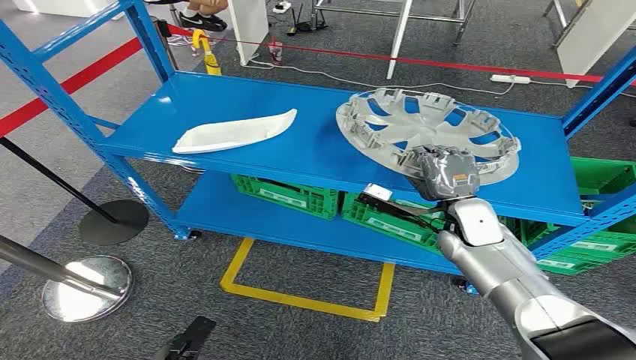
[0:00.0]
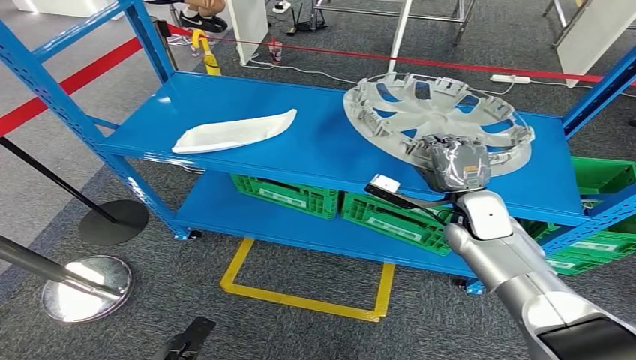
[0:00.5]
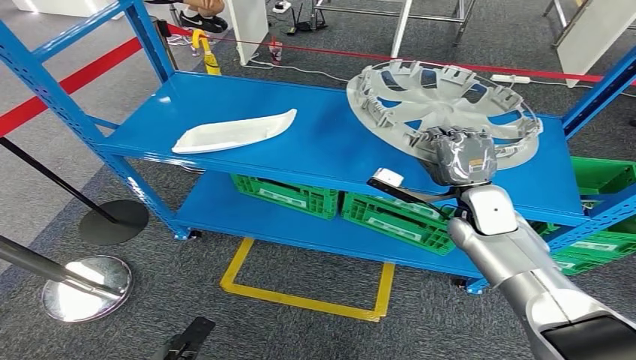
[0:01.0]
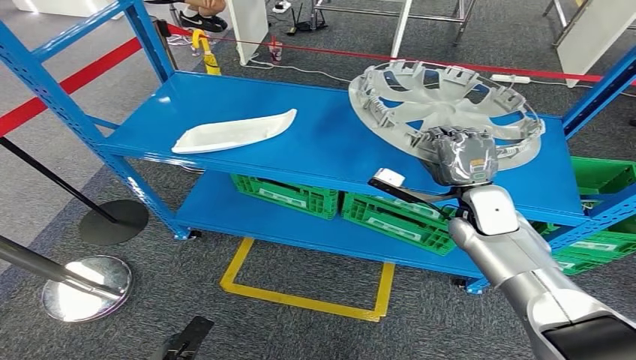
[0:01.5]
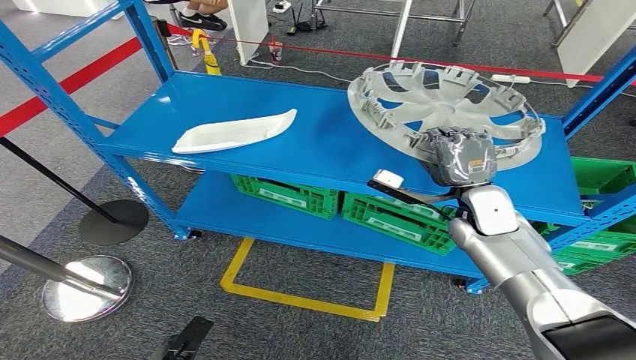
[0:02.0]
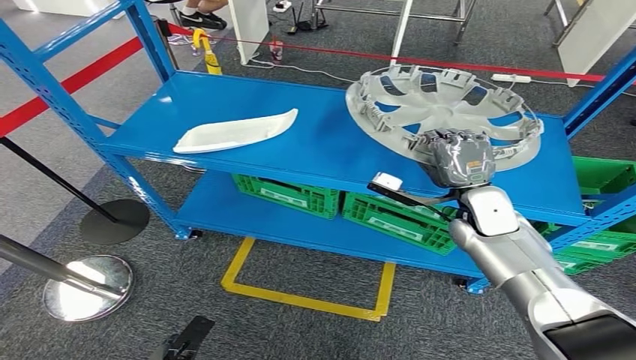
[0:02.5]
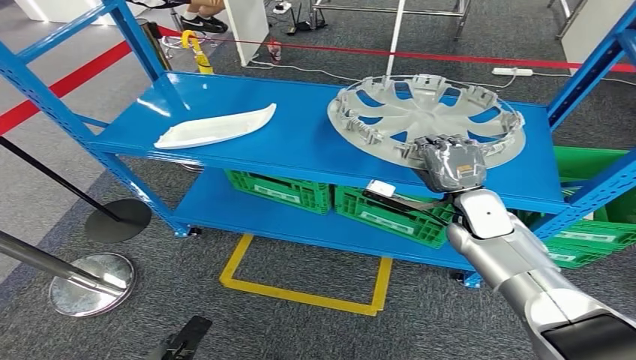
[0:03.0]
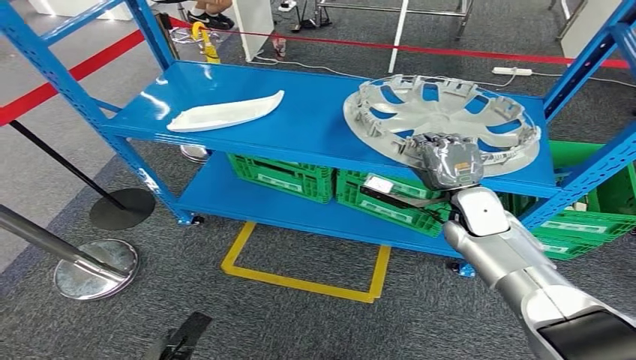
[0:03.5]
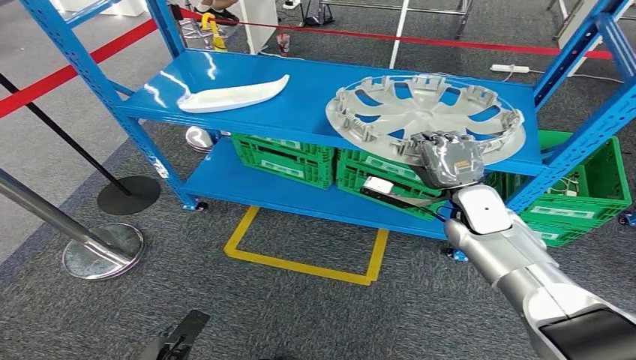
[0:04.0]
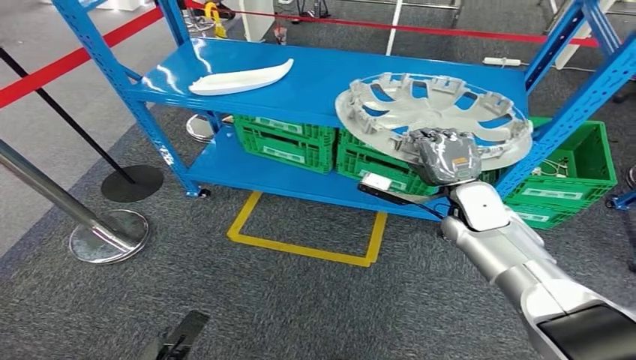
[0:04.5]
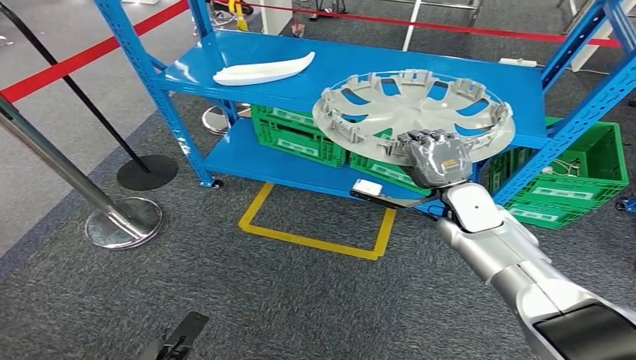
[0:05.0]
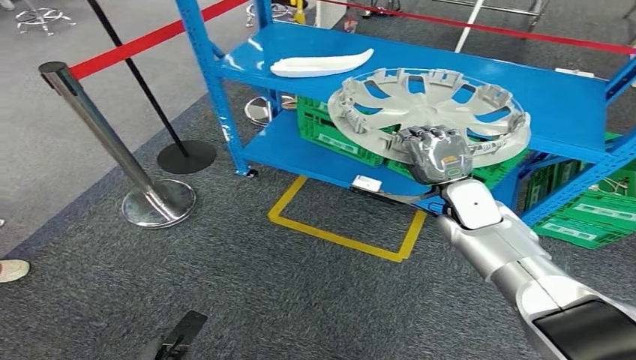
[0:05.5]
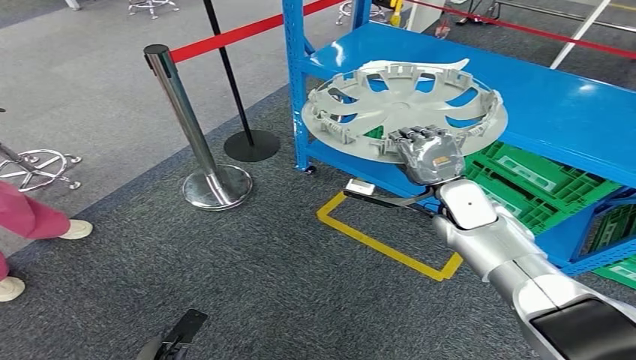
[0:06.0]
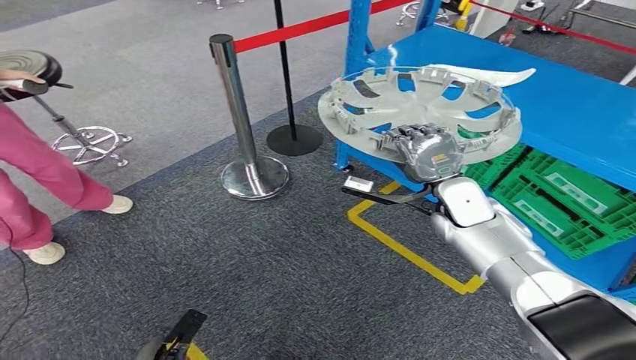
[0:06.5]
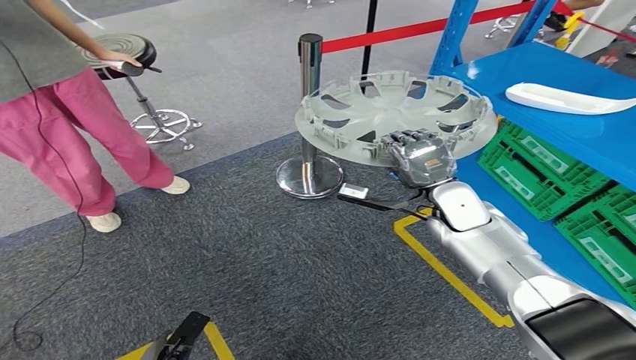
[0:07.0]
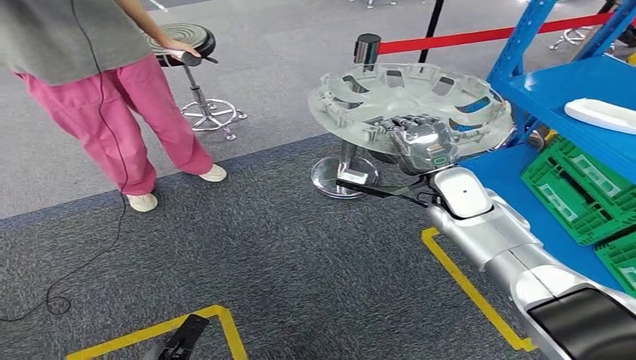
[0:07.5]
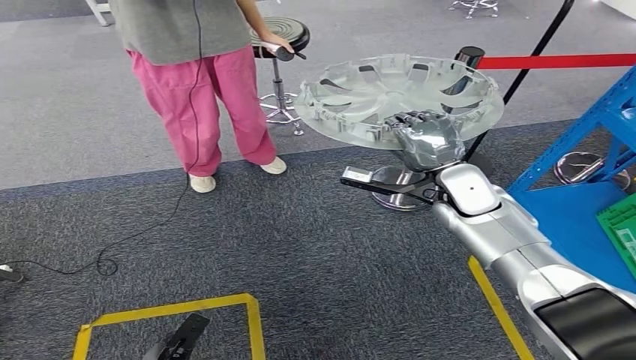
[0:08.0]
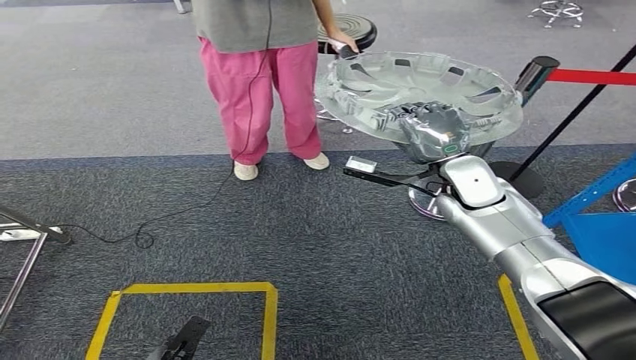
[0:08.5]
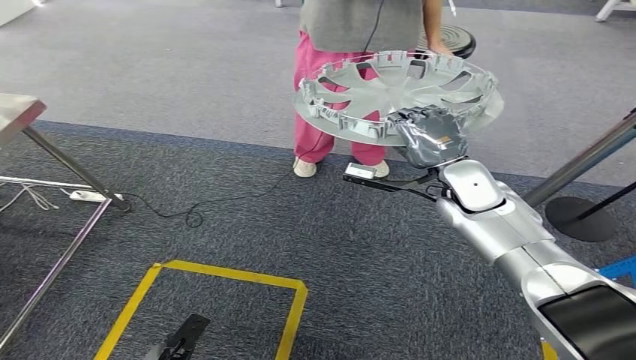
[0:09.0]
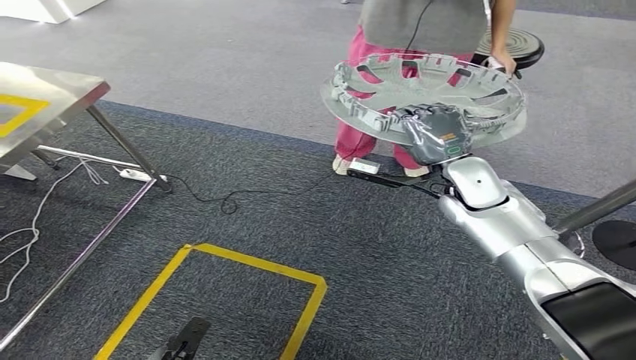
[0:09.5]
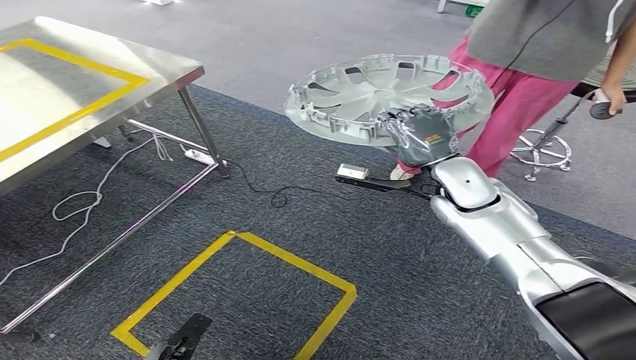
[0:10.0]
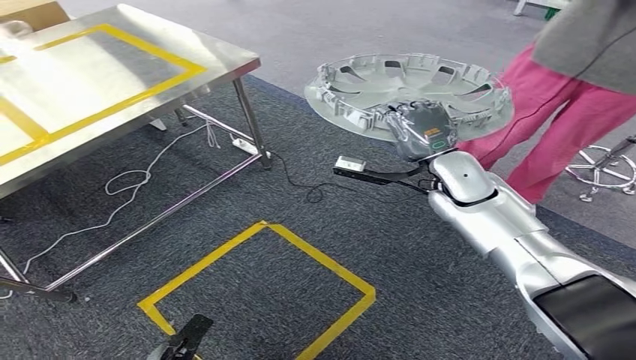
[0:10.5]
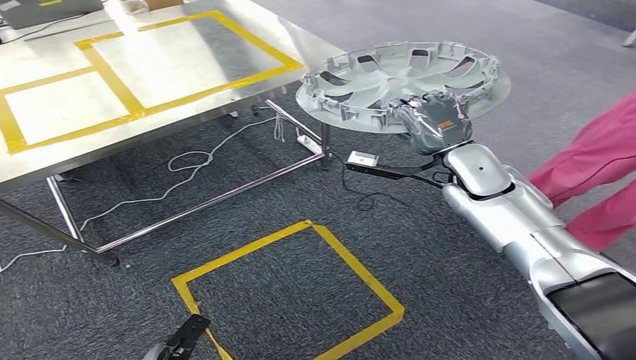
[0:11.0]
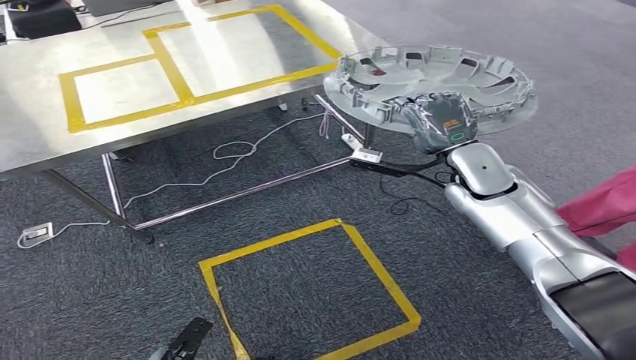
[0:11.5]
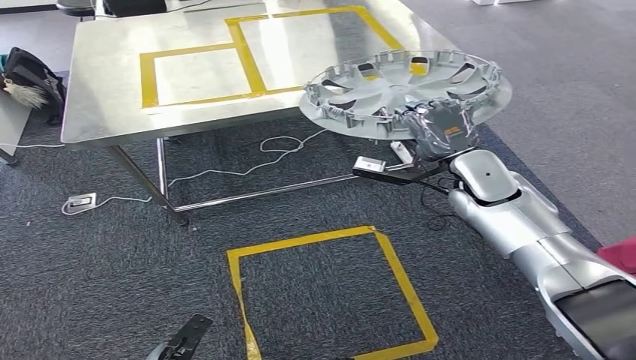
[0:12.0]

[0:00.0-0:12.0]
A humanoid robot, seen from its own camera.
Step, 0:00.0 to 0:02.0: Pick up the small parts from the shelf.

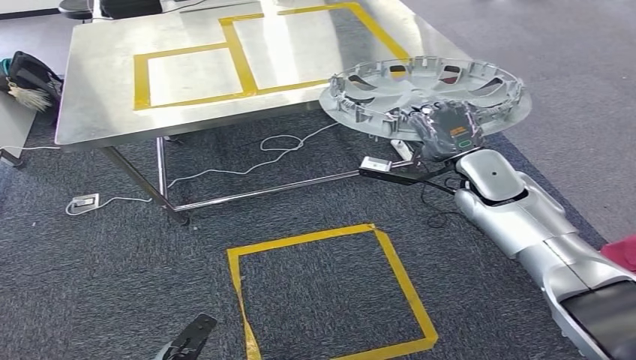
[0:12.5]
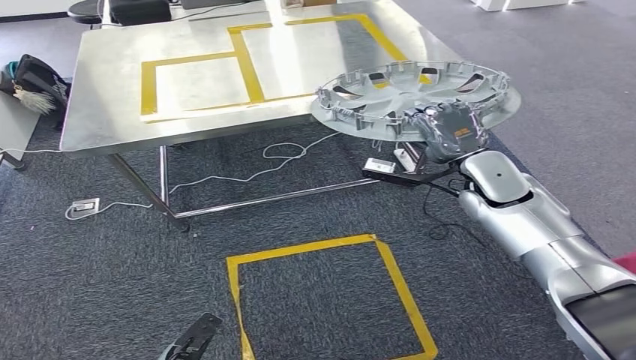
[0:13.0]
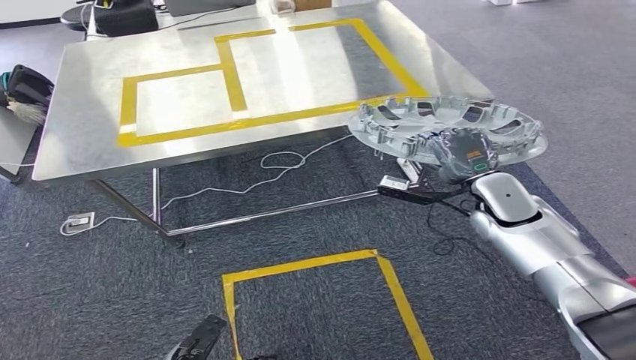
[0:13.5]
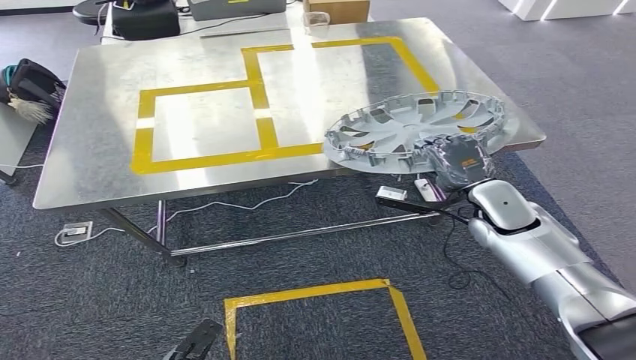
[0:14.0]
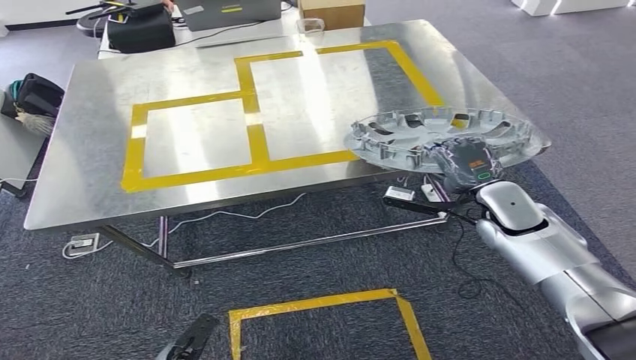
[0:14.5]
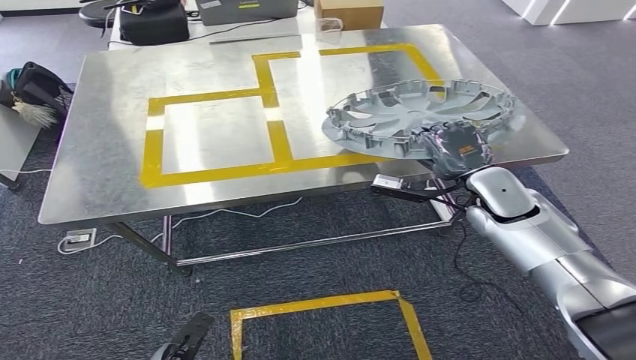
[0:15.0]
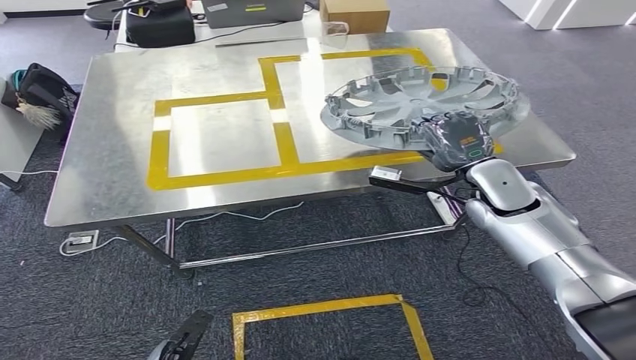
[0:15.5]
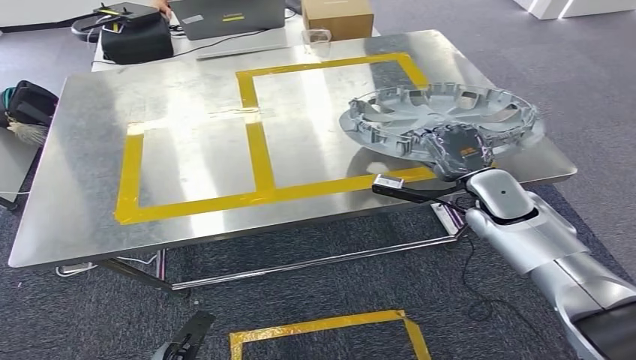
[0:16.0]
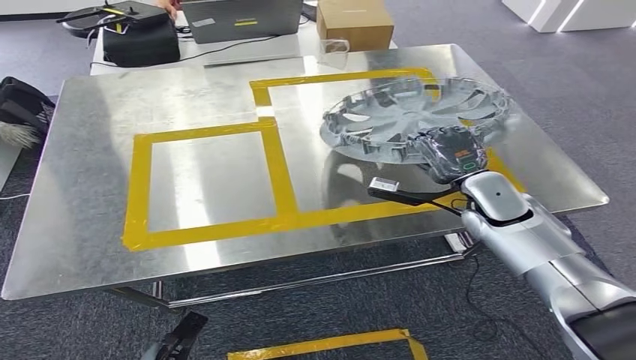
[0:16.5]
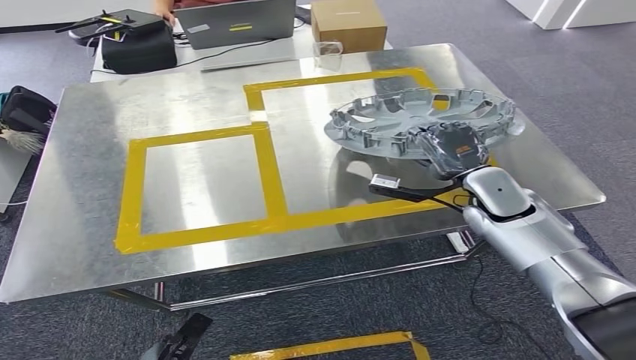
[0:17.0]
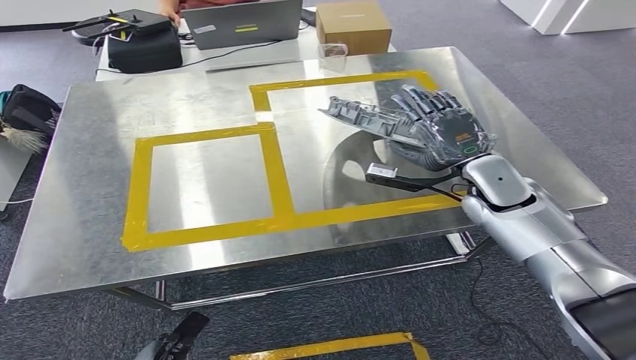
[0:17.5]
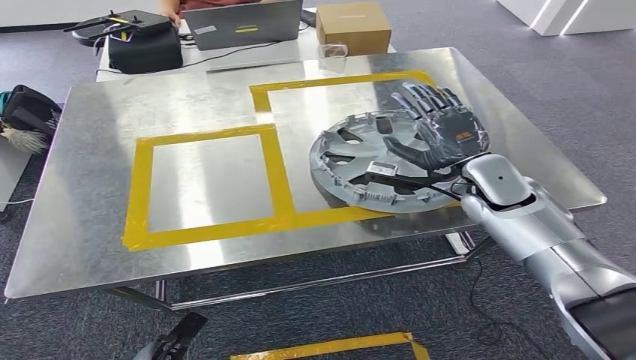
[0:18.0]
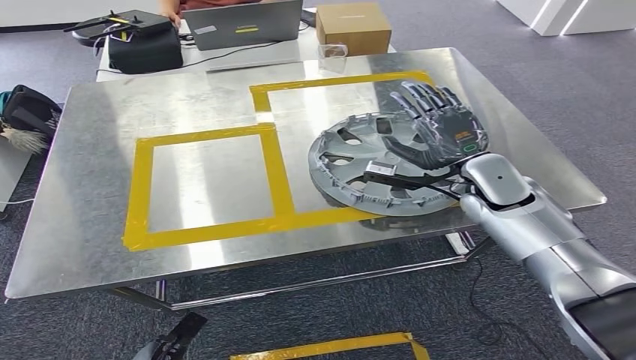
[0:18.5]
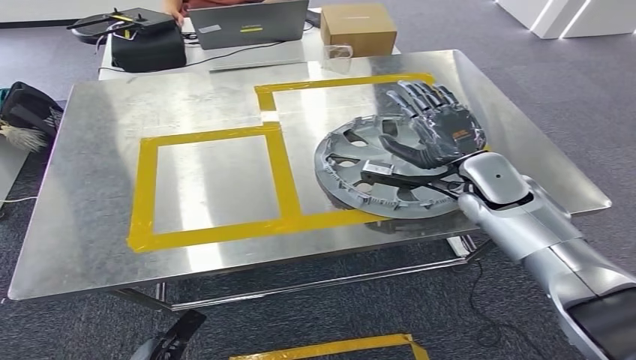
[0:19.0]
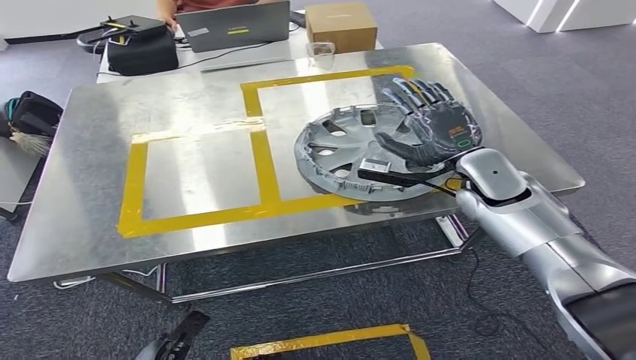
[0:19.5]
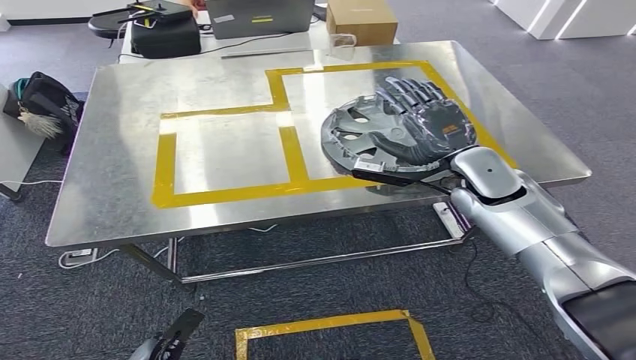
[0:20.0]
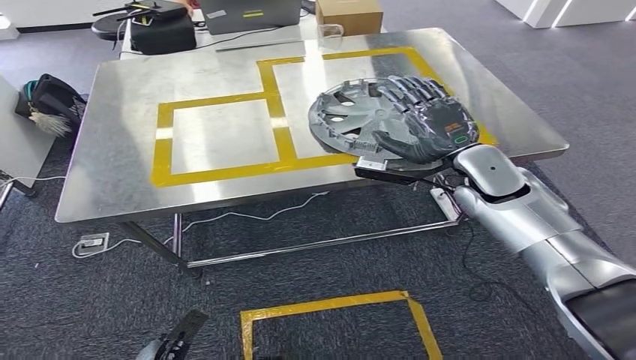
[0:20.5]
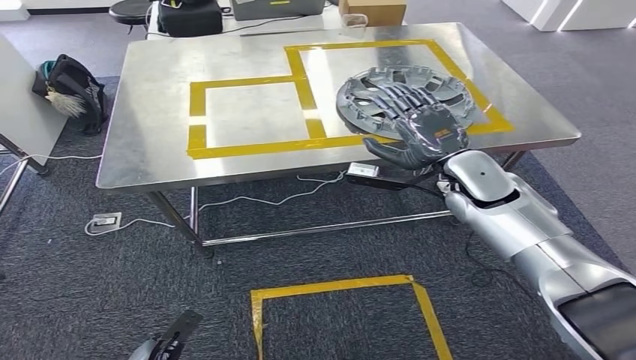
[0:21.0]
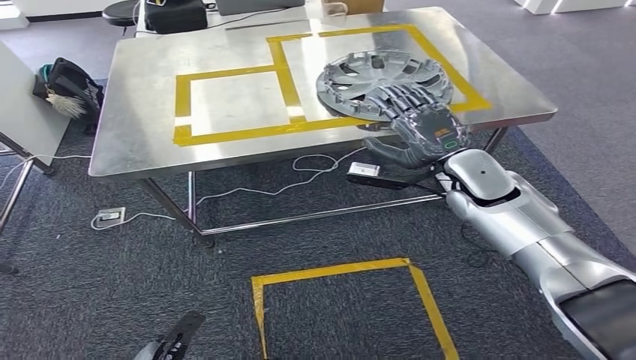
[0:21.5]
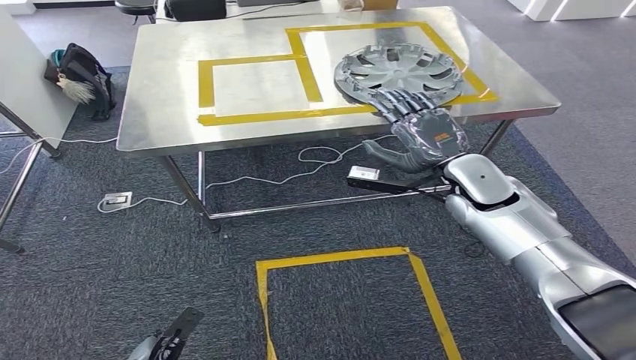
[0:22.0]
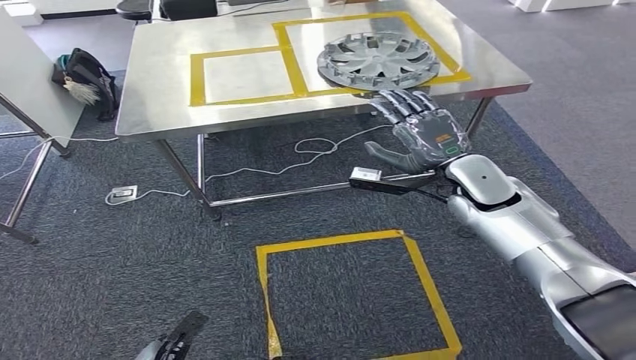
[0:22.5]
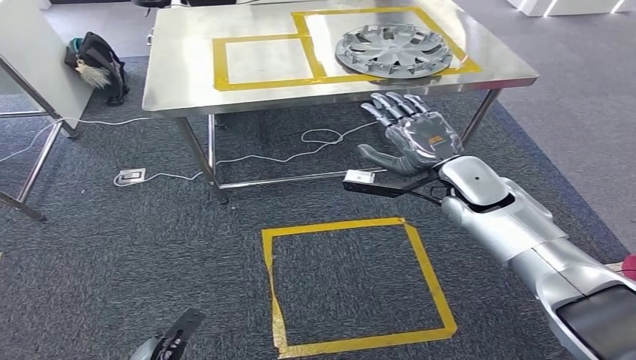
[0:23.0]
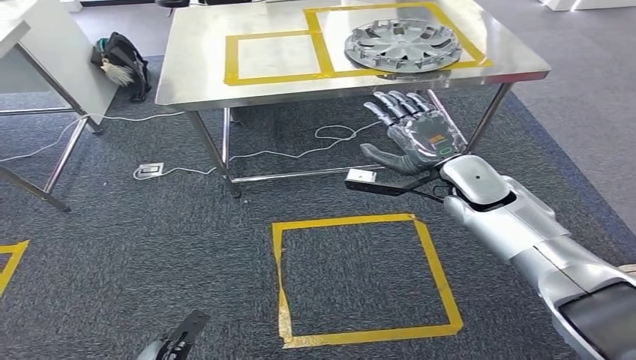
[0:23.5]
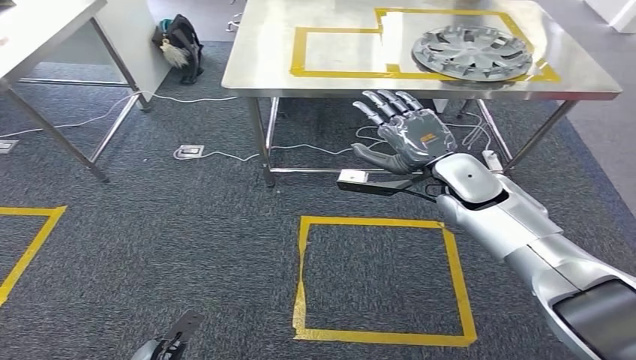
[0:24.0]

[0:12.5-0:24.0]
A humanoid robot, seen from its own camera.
Step, 0:12.5 to 0:15.0: Move the small parts to the workbench.
Step, 0:15.5 to 0:22.5: Insert the small parts into the corresponding slots on the workbench.
